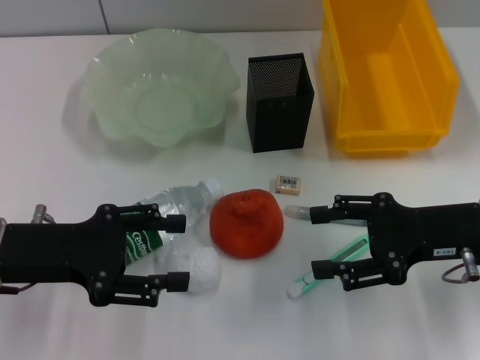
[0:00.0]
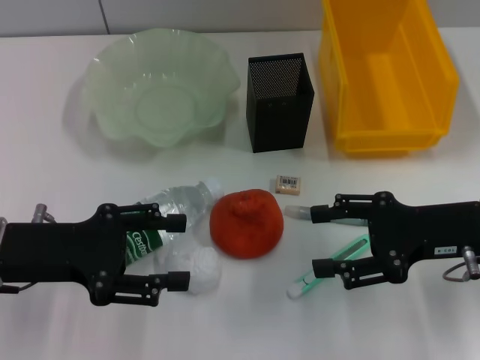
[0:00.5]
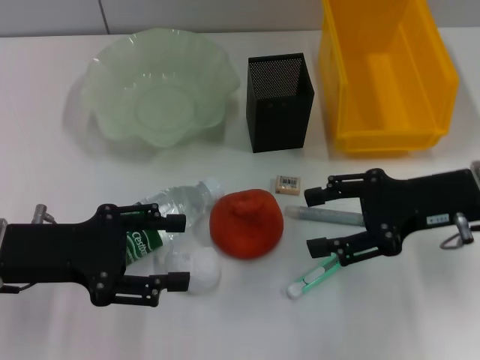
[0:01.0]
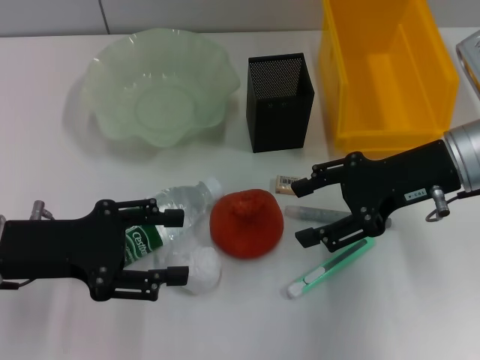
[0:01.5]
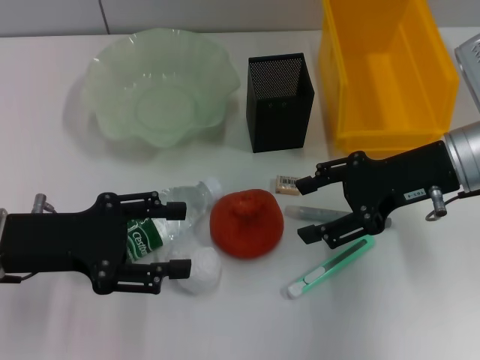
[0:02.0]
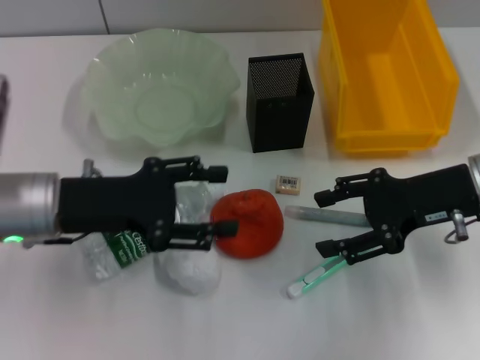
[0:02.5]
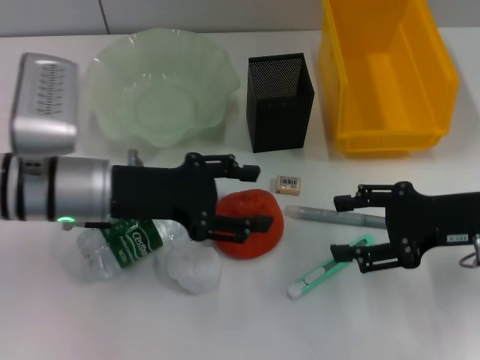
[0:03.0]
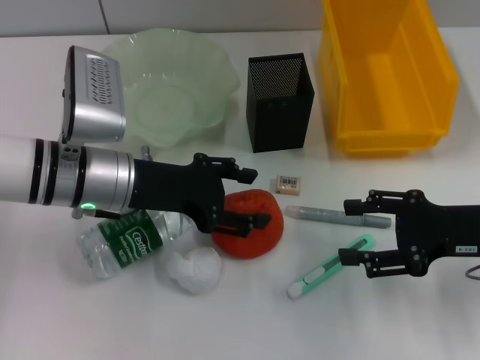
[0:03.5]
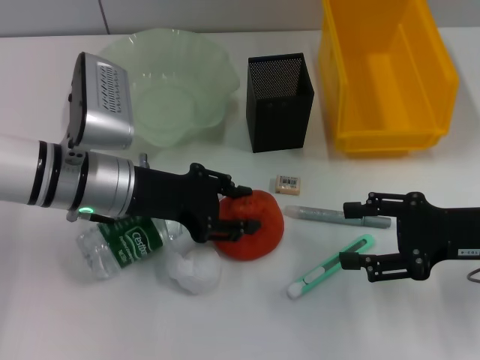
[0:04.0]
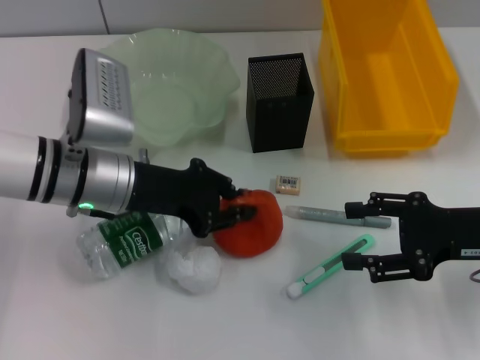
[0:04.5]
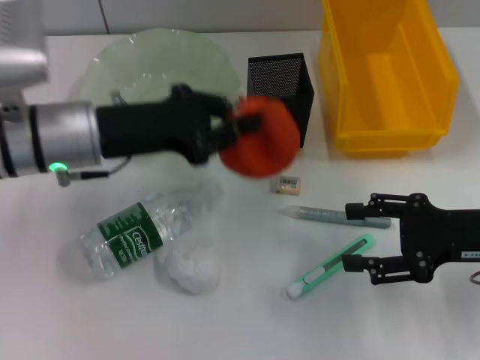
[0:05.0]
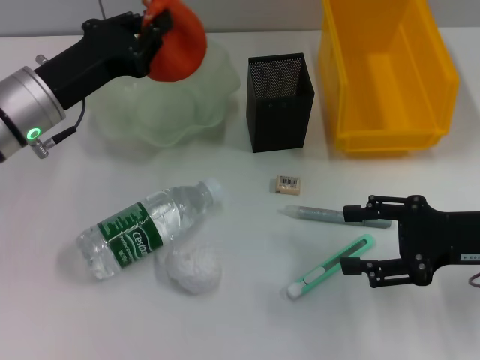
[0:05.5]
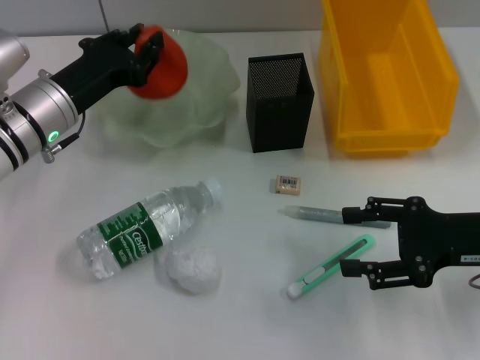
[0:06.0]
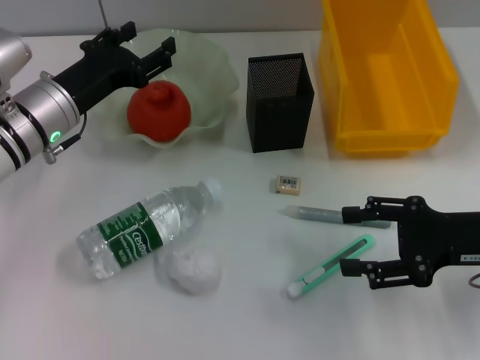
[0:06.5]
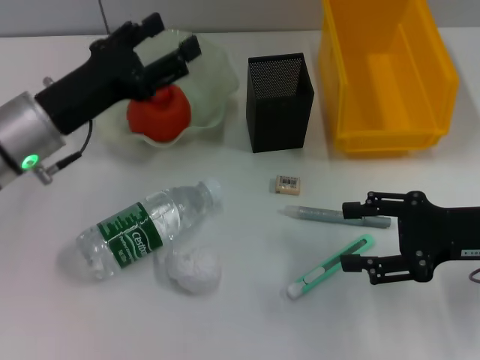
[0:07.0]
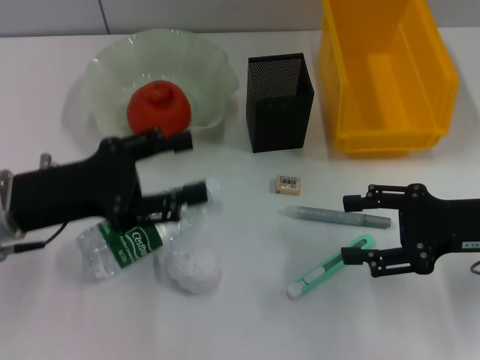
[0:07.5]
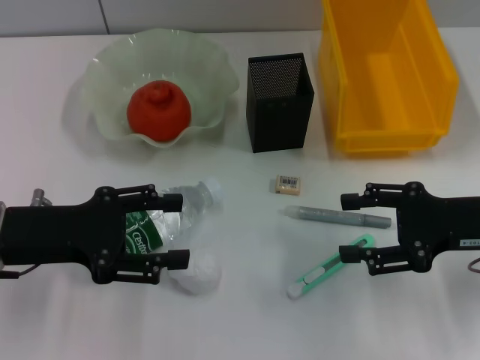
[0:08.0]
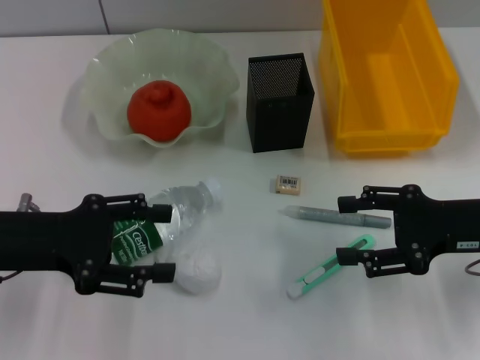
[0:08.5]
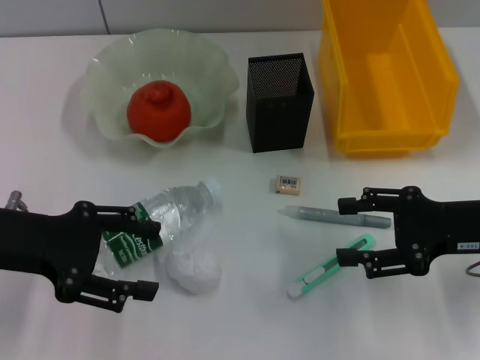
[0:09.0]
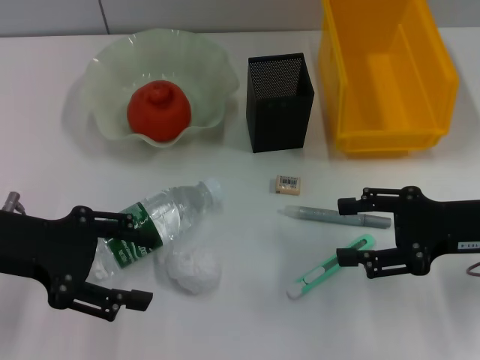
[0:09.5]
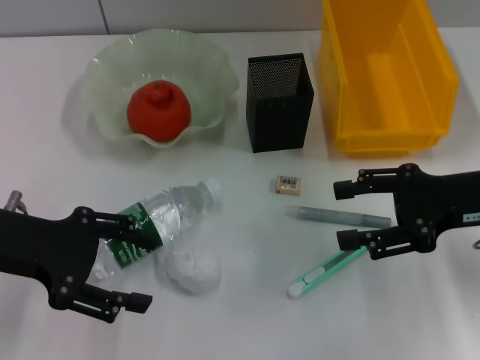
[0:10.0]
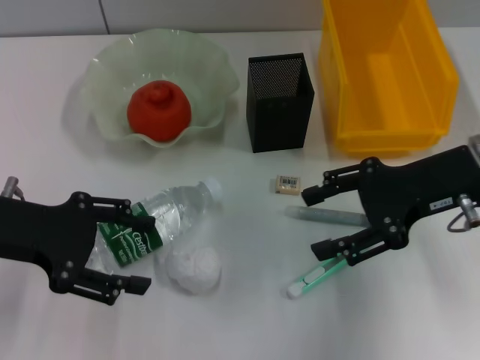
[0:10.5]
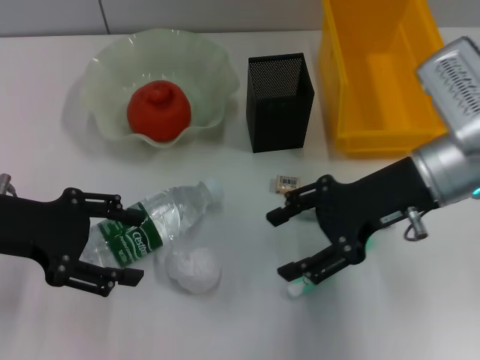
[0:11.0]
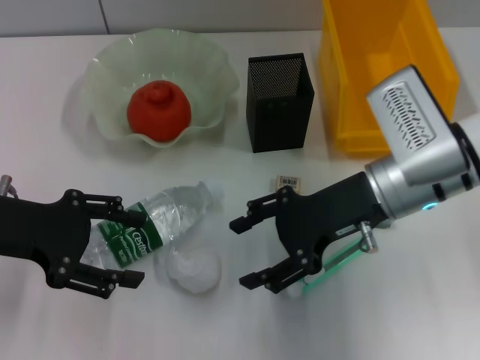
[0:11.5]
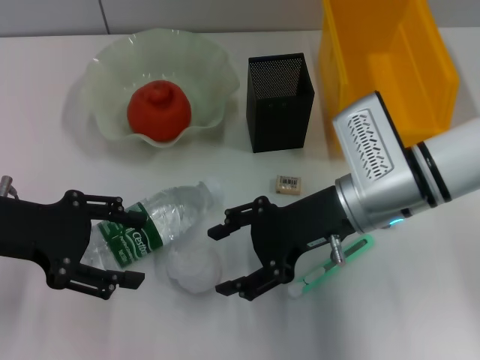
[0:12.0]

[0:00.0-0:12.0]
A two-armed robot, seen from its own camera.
Step, 0:00.0 to 0:04.0: Grab the orange with the left hand.
Step, 0:04.5 to 0:06.5: Place the orange into the fruit bowl with the left hand.
0:00.0 to 0:02.0: The right gripper travels forward by roughly 5 cm.
0:02.0 to 0:04.0: The left gripper moves to the right and forward, some 10 cm. Meanwhile the right gripper heads backward and to the right, covering roughly 10 cm.
0:04.0 to 0:06.0: The left gripper shifts roughly 5 cm to the left, and closes.
0:06.0 to 0:08.0: The left gripper goes roughly 10 cm backward, and opens its fingers.
0:08.0 to 0:10.0: There are only small adjustments of the grippers.
0:10.0 to 0:12.0: The right gripper travels to the left by some 15 cm.

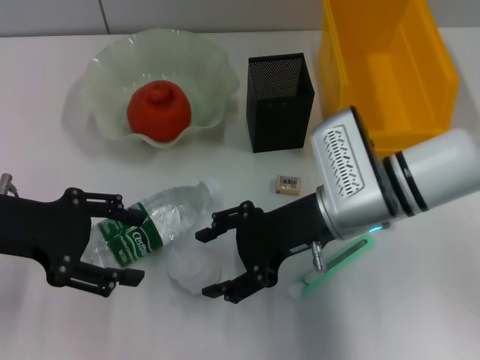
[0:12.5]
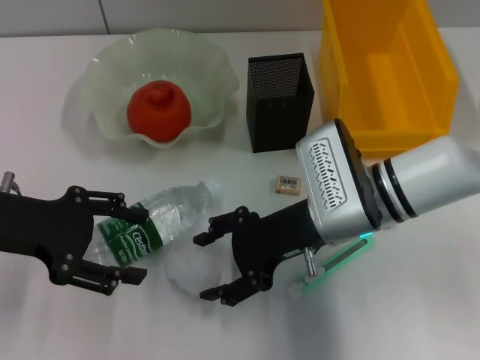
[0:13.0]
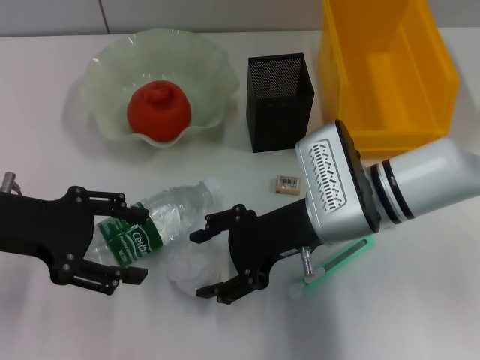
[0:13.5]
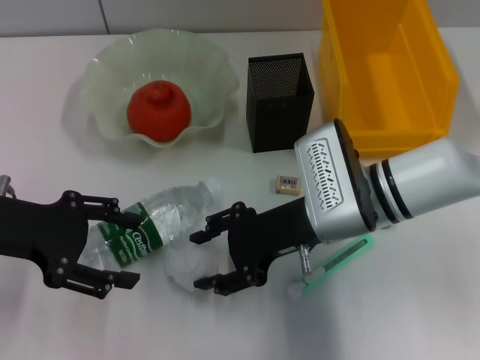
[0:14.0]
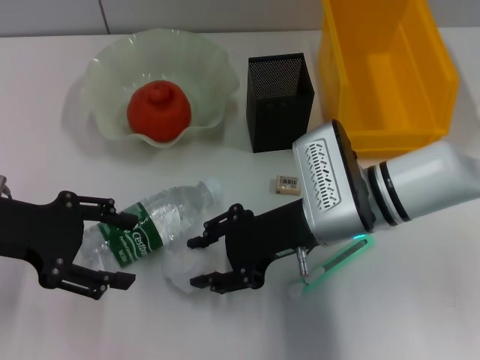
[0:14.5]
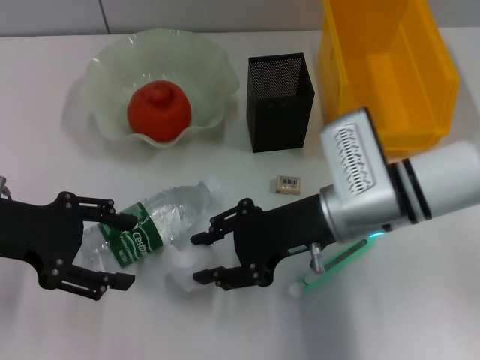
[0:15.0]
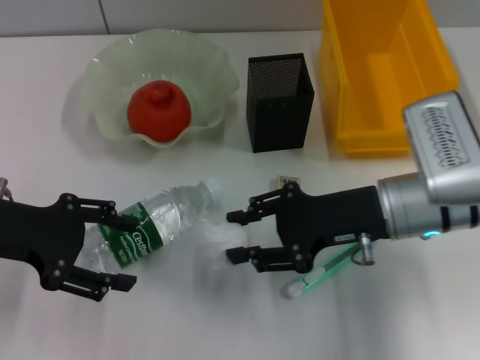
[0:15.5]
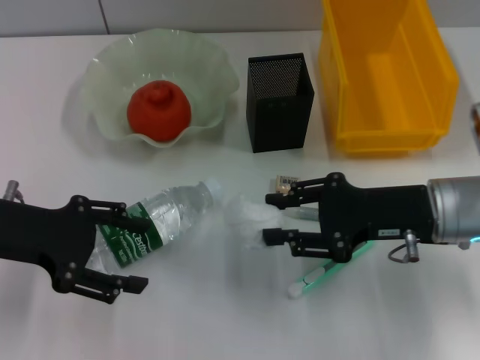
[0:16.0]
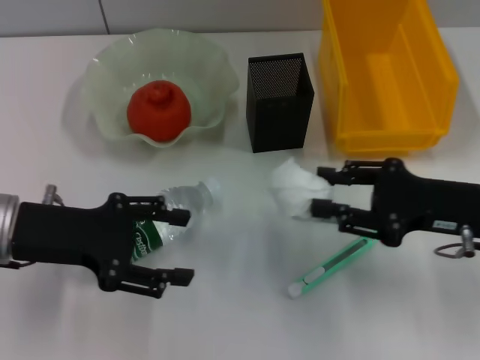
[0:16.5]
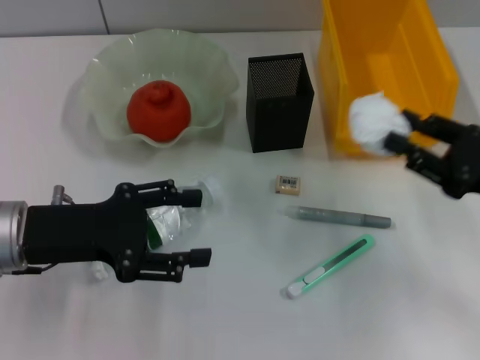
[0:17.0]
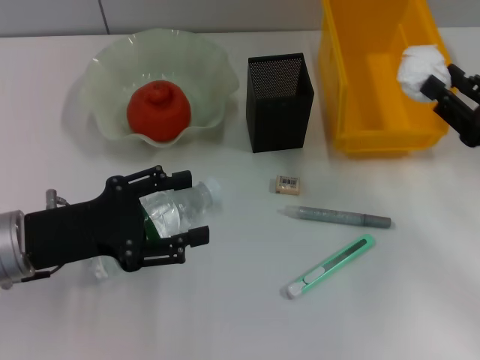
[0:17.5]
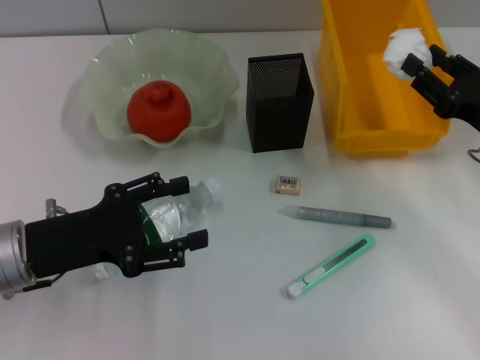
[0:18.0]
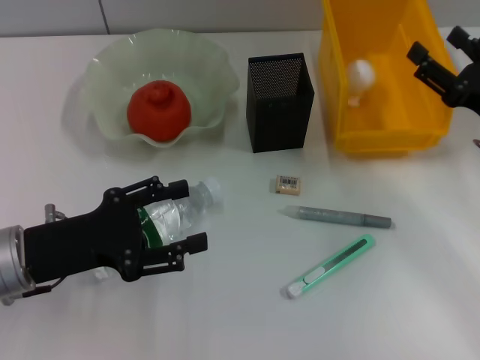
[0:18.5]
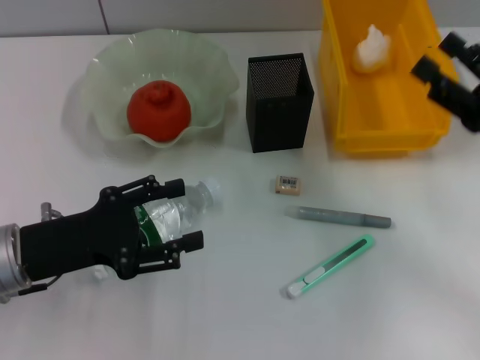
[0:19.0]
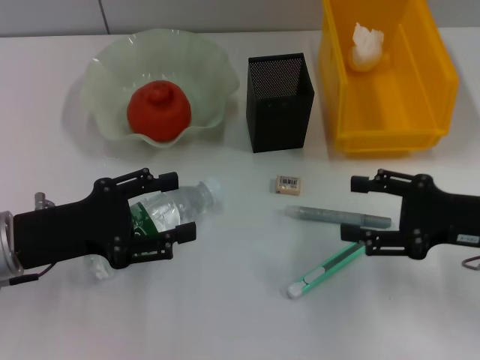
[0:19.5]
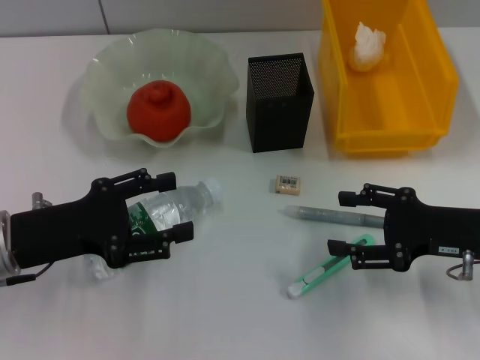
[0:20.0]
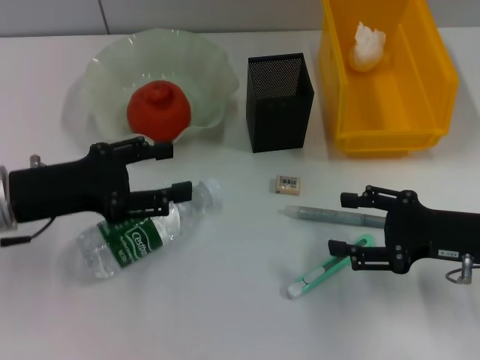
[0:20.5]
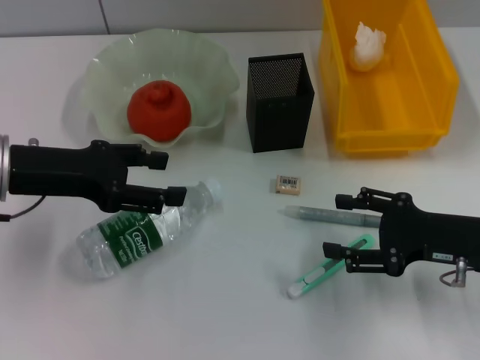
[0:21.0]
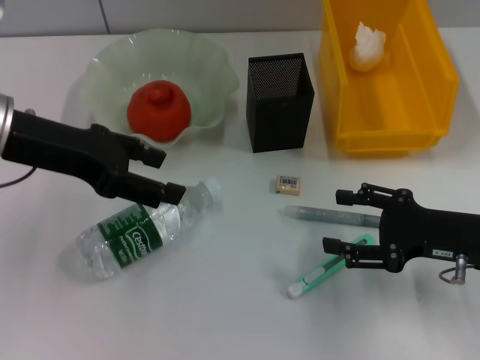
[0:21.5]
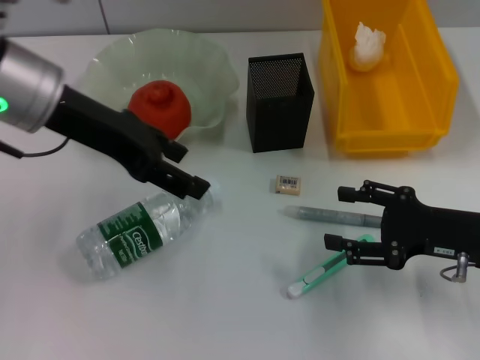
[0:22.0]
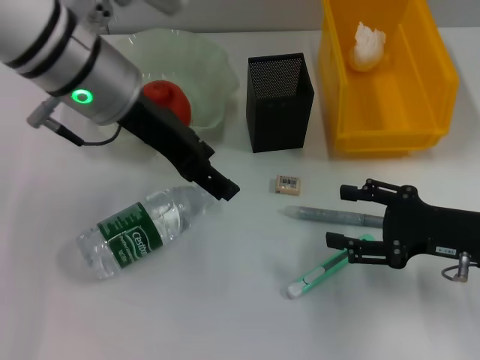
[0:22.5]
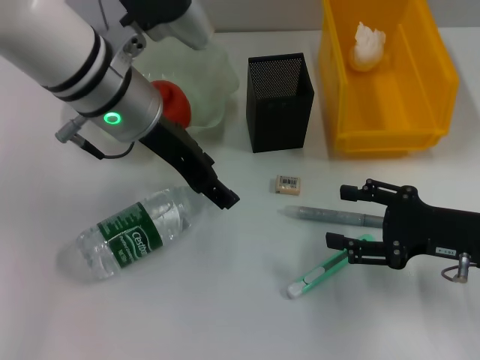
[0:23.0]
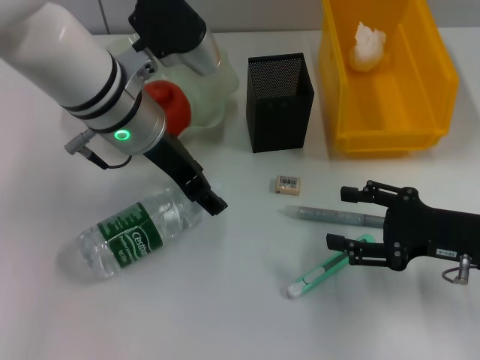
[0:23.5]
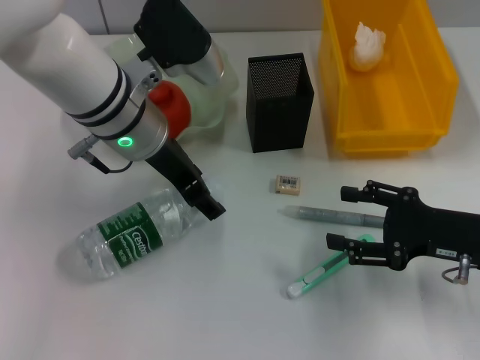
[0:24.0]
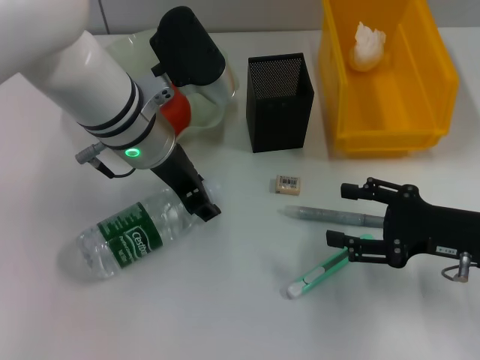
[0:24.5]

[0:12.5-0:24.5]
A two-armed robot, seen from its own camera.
Step, 0:14.5 to 0:19.0: Place the paper ball into the trash can with the right hand.
0:12.5 to 0:14.5: The right gripper closes.
0:14.5 to 0:16.5: The right gripper heads to the right, covering approximately 15 cm.
0:16.5 to 0:18.5: The right gripper shifts by approximately 5 cm, and opens up. The left gripper changes place by some 5 cm.
0:18.5 to 0:20.5: The right gripper changes place by some 5 cm. Meanwhile the left gripper changes place by about 5 cm.
0:20.5 to 0:22.5: The left gripper shifts roughly 20 cm to the right, upward and forward.
0:22.5 to 0:24.5: The left gripper heads downward, covering some 5 cm.

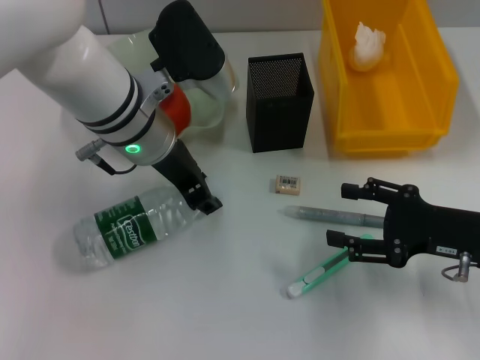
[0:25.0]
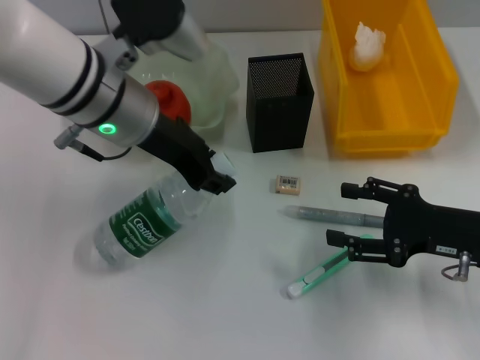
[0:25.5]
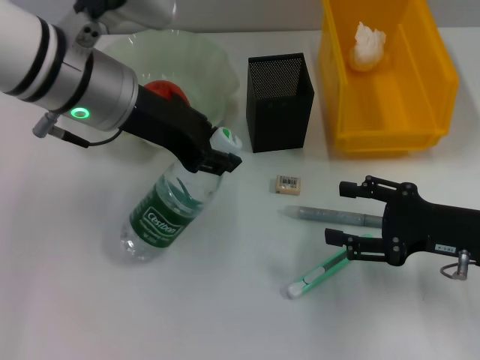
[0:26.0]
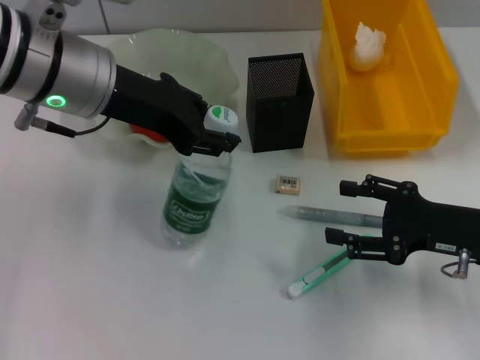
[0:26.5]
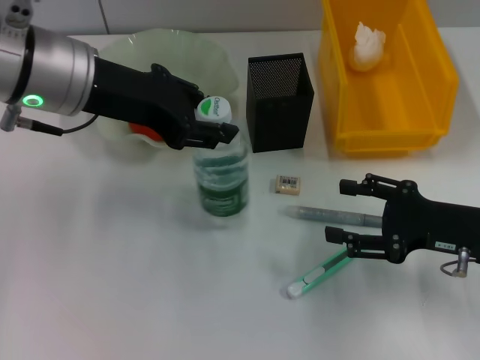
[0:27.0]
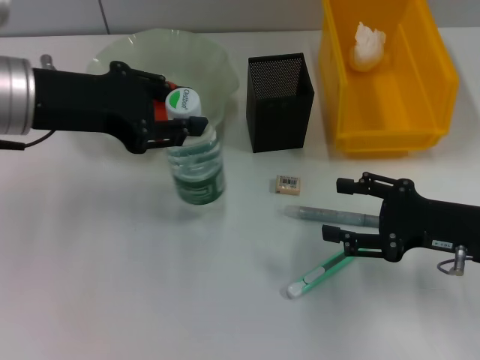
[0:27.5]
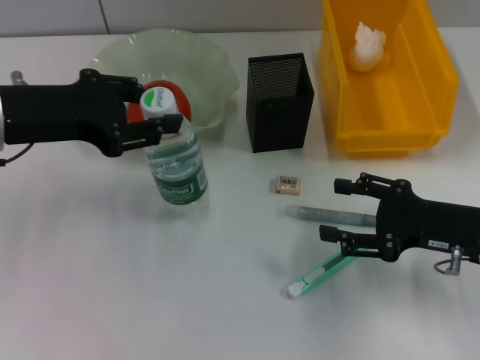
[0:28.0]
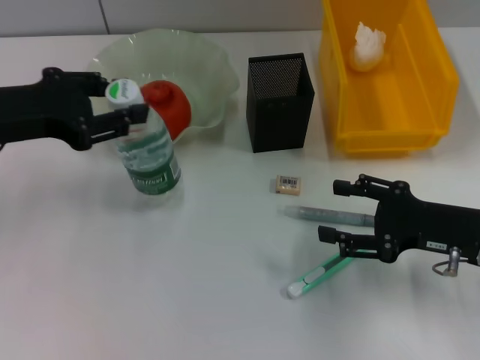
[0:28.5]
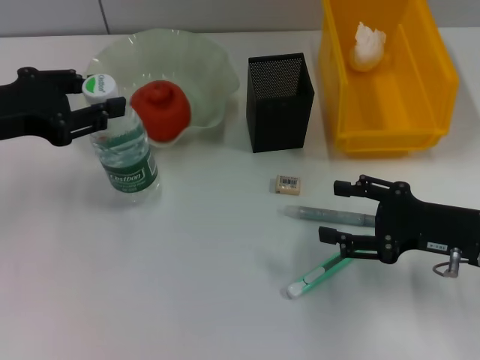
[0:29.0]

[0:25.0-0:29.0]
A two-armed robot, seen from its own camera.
0:25.0 to 0:27.0: The left gripper heads upward and to the left, covering approximately 10 cm.
0:27.0 to 0:29.0: The left gripper moves to the left, some 10 cm.
